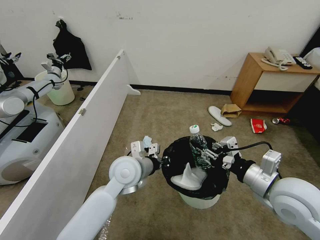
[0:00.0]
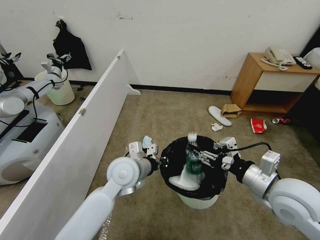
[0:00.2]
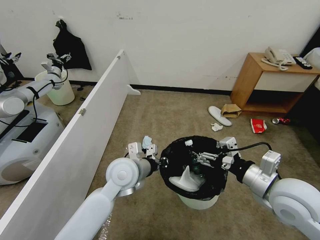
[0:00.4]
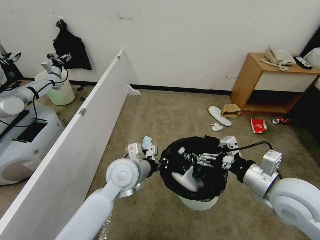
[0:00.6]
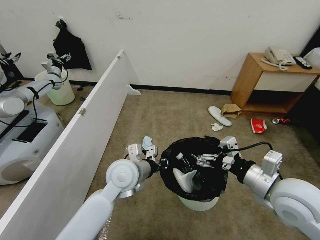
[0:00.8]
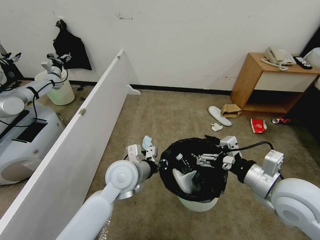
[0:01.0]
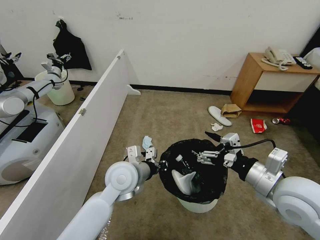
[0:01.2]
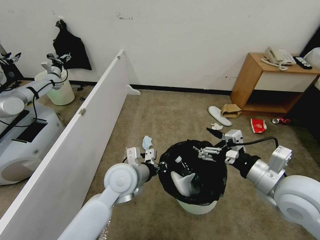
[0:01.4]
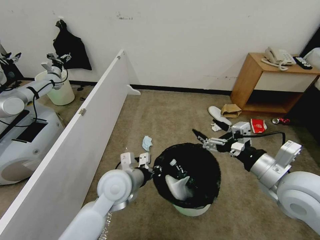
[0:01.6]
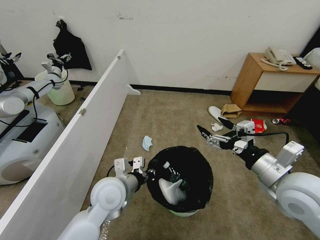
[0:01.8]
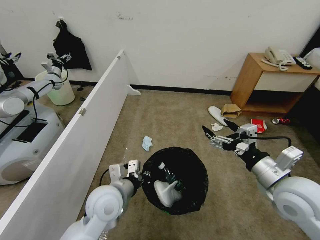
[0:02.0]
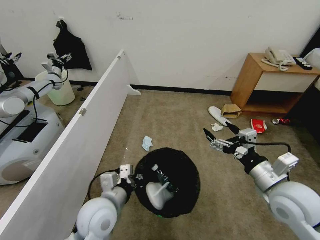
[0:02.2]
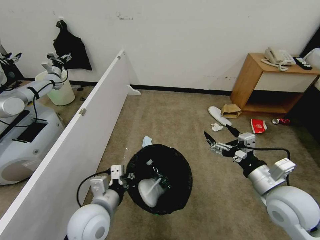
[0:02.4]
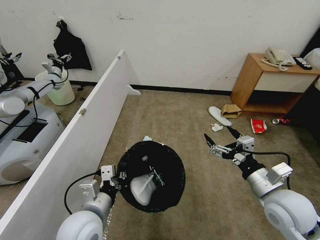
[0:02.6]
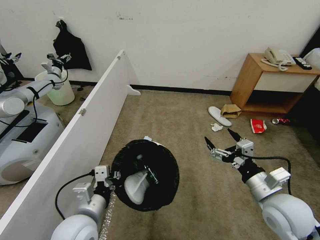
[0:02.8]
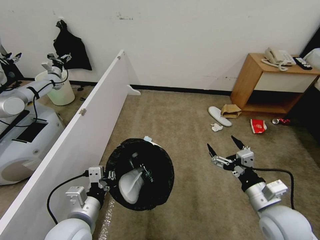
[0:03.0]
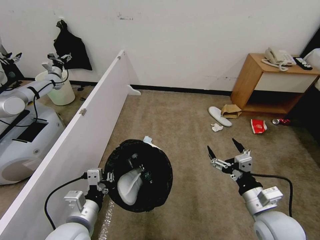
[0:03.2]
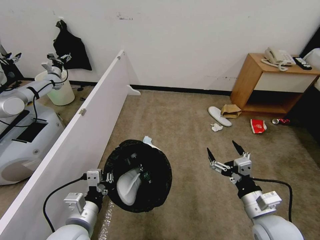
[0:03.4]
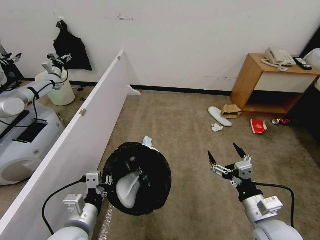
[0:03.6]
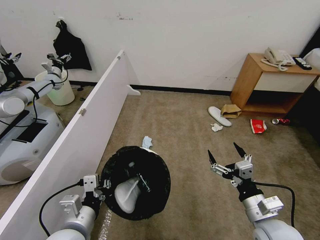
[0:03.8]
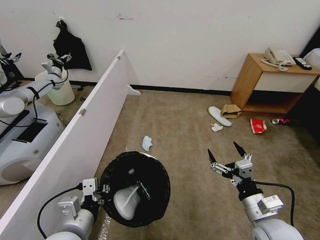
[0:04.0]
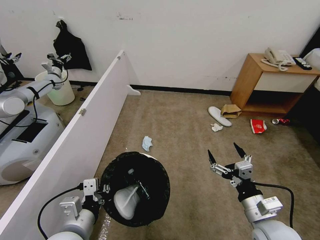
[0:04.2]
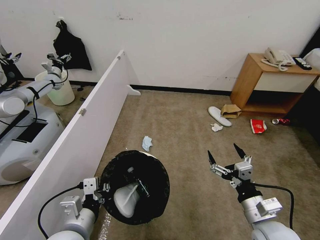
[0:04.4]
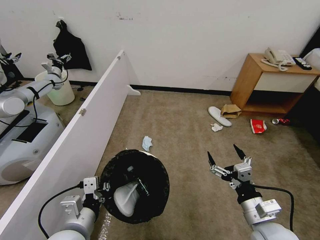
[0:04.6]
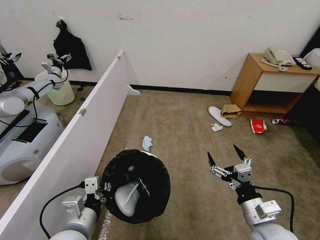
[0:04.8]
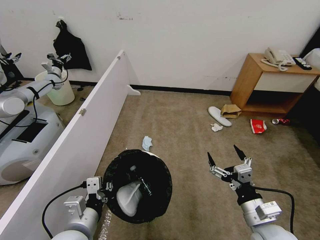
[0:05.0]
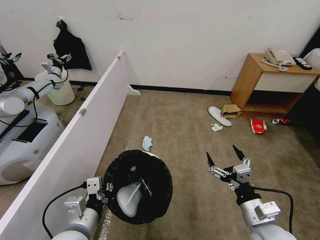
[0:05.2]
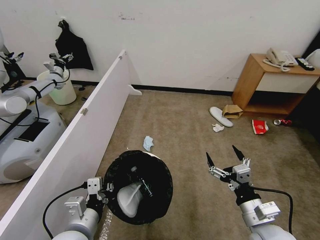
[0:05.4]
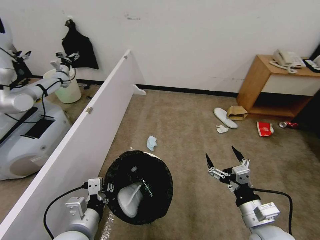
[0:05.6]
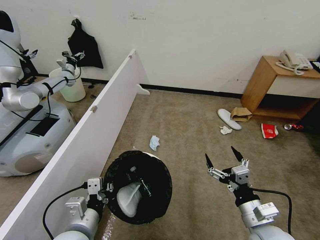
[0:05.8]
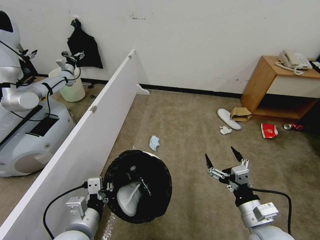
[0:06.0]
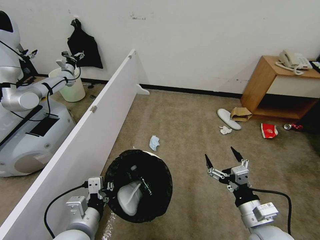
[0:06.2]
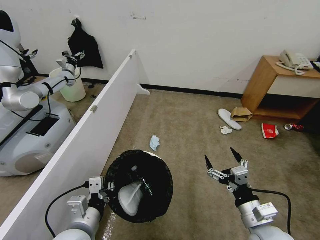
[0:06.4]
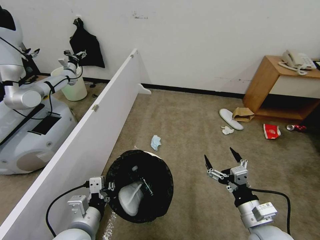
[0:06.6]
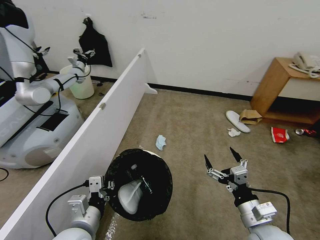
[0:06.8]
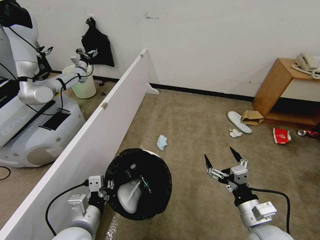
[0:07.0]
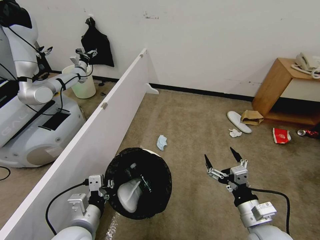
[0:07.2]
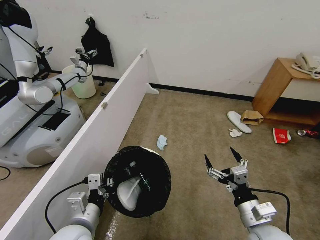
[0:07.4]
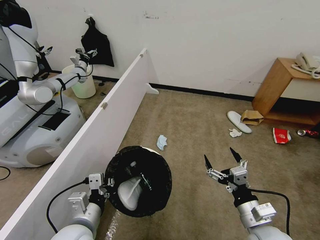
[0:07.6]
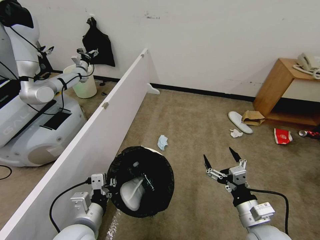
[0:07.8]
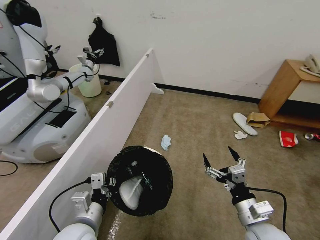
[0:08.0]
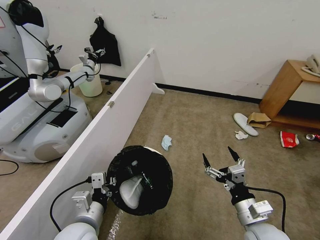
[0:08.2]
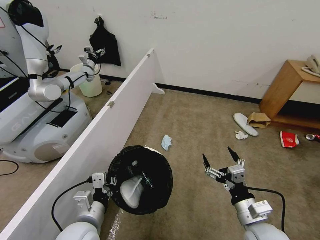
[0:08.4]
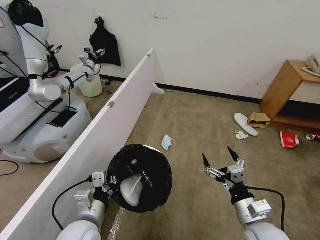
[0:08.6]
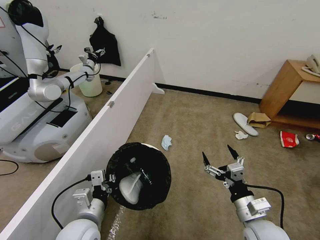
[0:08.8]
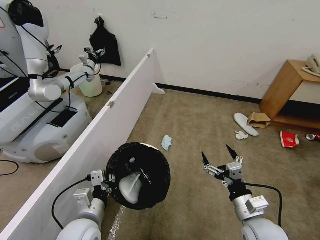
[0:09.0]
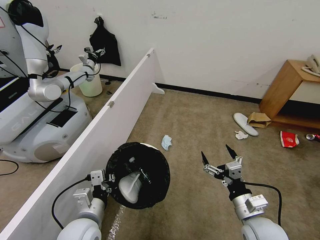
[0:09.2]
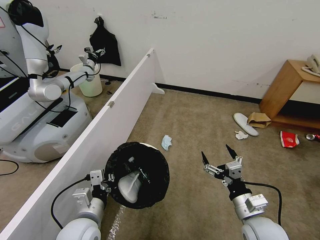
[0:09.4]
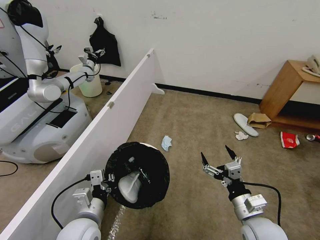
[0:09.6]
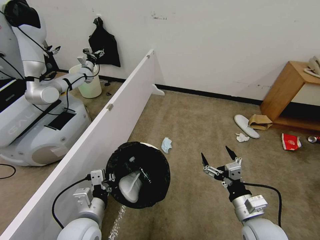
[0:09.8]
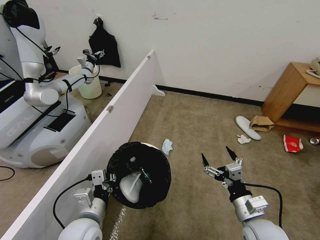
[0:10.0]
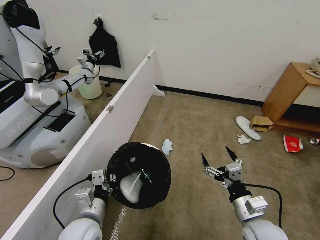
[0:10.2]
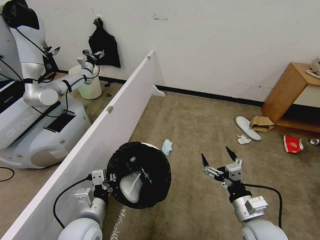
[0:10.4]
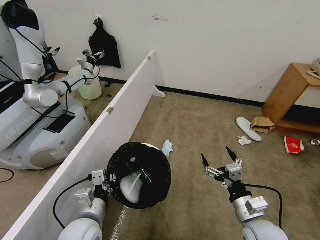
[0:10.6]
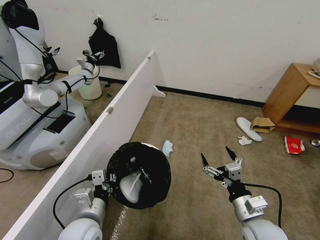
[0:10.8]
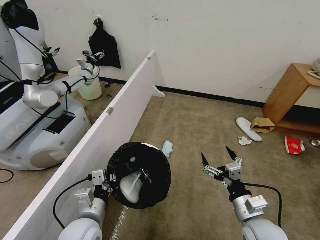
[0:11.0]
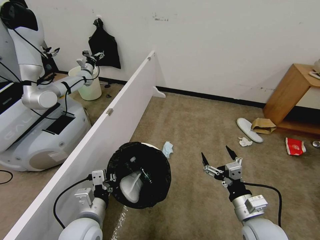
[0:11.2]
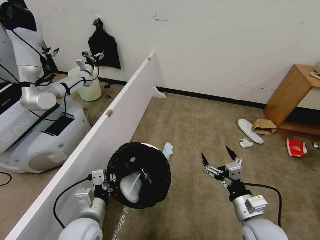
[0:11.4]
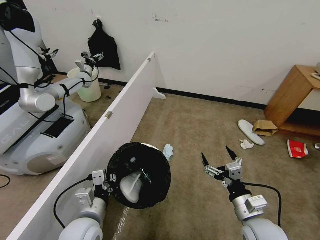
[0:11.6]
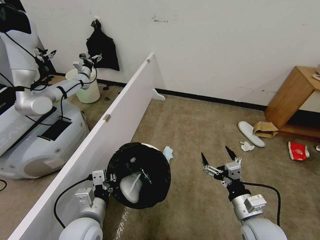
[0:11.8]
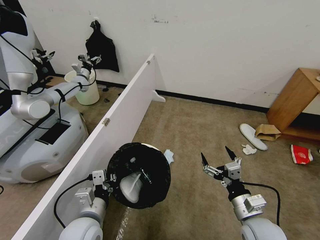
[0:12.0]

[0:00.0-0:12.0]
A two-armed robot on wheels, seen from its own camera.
Task of the whole recording: Pick up the trash bin, then pick up the garbage from the floor and place it into the trash bin.
0:00.0 to 0:01.6: The right gripper opens.
0:01.6 to 0:03.0: The left gripper moves backward and to the left, some 15 cm. The right gripper travels downward by approximately 10 cm.
0:03.0 to 0:04.4: The grippers stay close to where they were, moving slightly.
0:09.0 to 0:10.4: Both grippers stay about where they are.

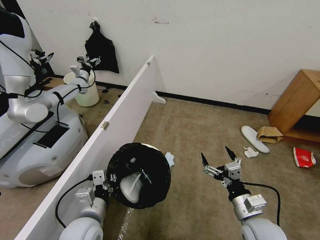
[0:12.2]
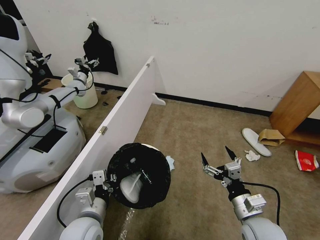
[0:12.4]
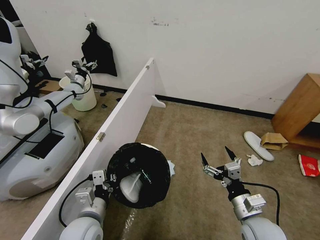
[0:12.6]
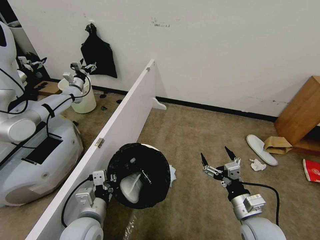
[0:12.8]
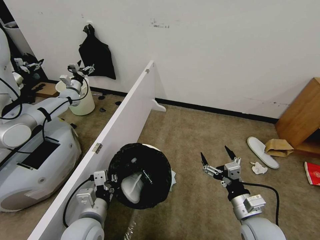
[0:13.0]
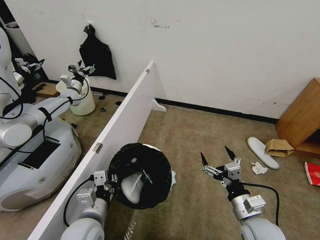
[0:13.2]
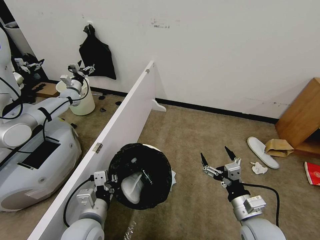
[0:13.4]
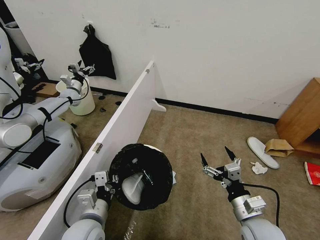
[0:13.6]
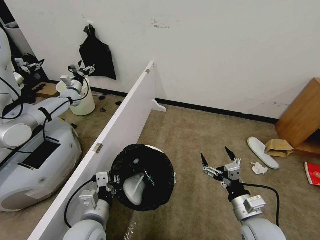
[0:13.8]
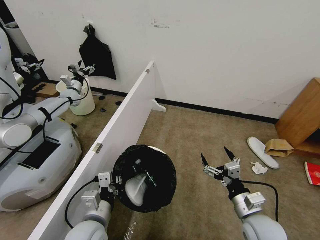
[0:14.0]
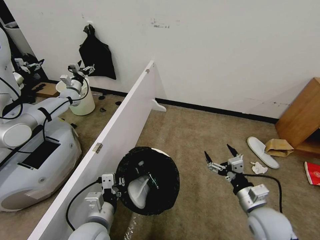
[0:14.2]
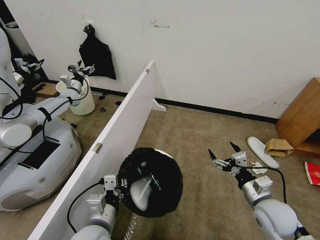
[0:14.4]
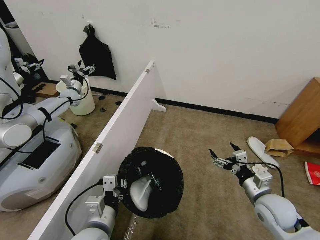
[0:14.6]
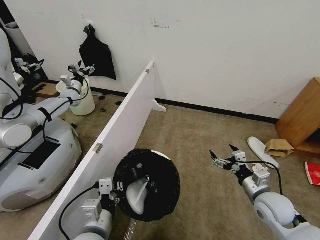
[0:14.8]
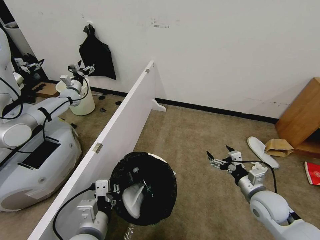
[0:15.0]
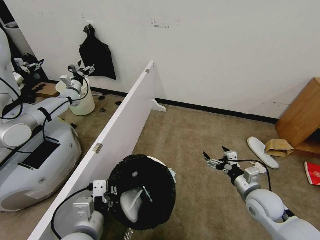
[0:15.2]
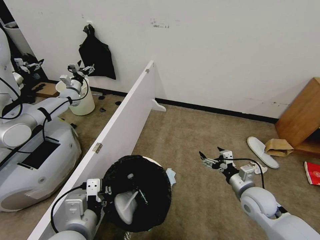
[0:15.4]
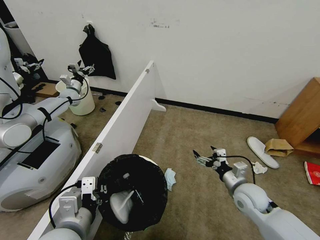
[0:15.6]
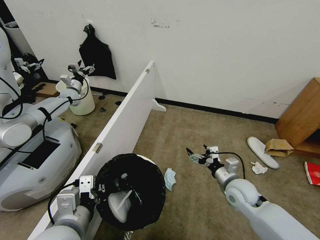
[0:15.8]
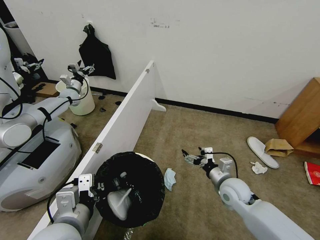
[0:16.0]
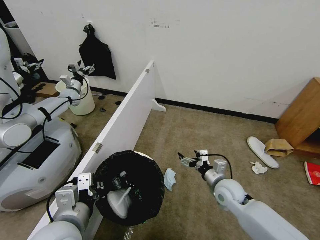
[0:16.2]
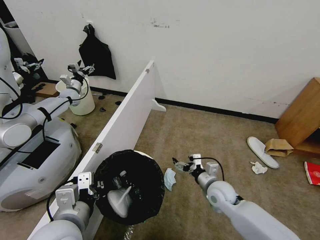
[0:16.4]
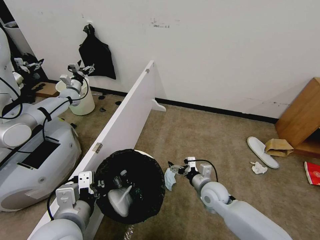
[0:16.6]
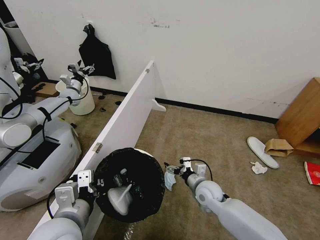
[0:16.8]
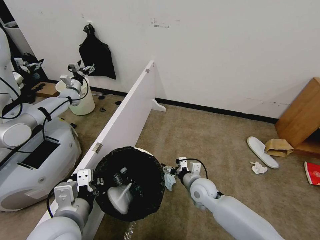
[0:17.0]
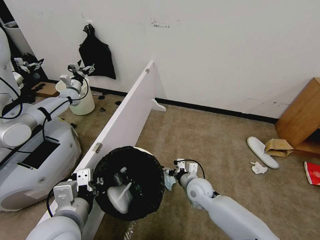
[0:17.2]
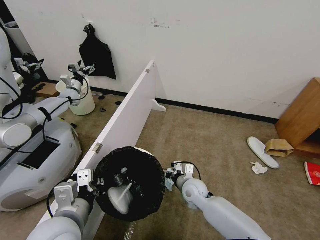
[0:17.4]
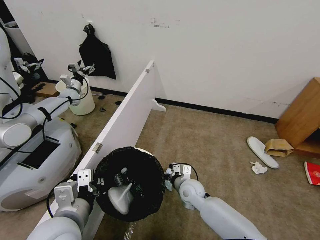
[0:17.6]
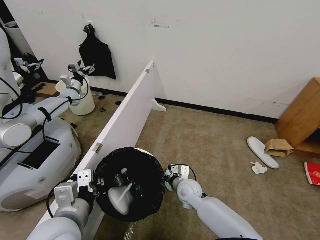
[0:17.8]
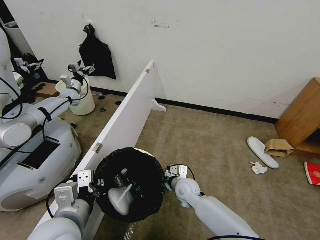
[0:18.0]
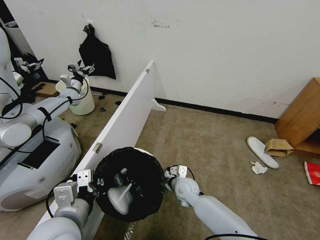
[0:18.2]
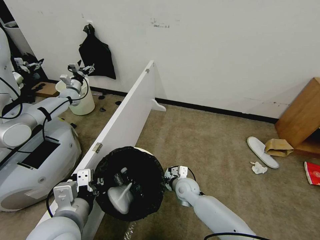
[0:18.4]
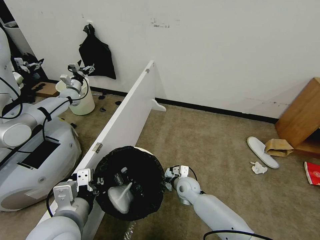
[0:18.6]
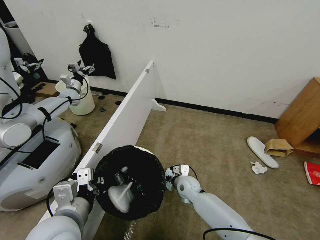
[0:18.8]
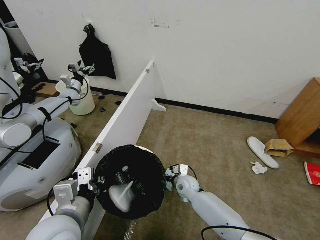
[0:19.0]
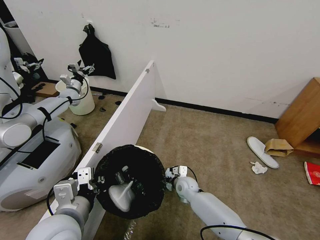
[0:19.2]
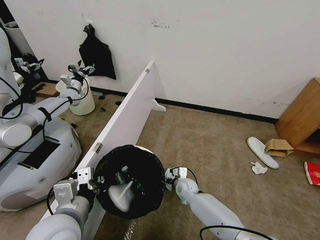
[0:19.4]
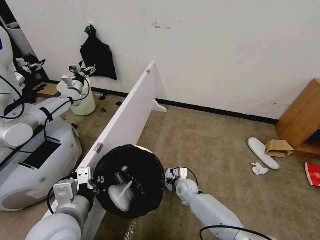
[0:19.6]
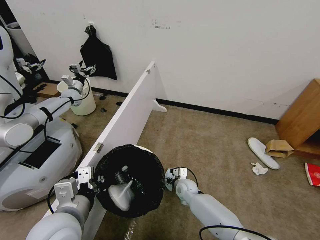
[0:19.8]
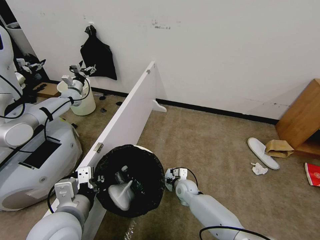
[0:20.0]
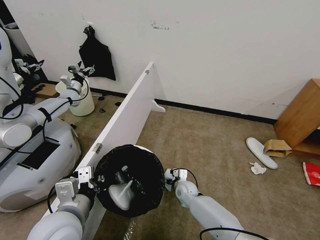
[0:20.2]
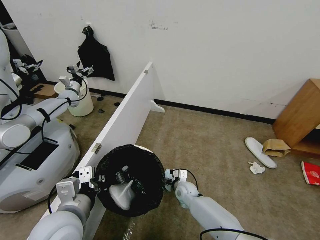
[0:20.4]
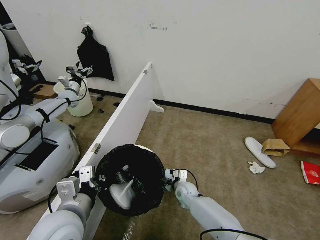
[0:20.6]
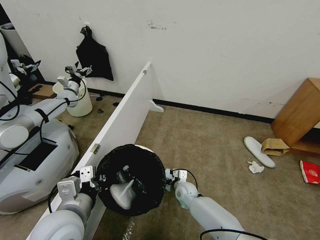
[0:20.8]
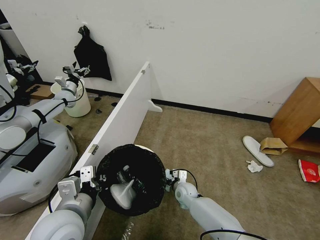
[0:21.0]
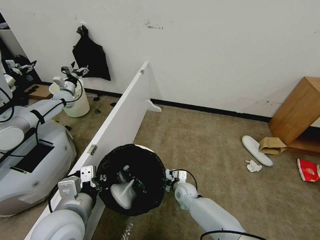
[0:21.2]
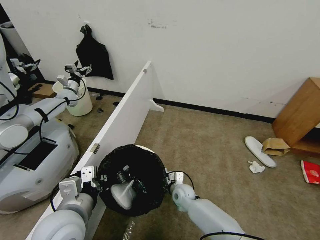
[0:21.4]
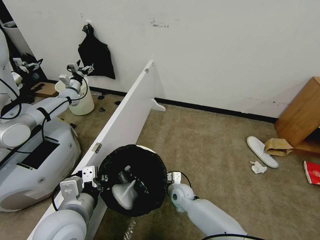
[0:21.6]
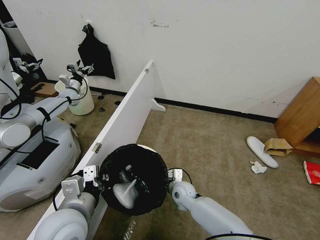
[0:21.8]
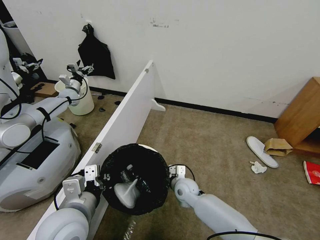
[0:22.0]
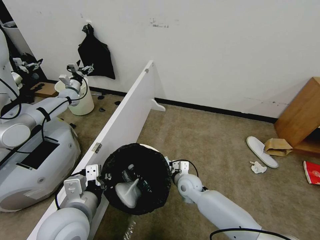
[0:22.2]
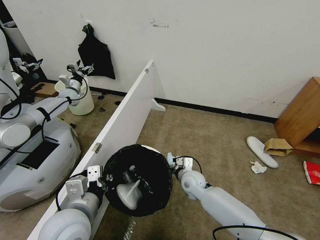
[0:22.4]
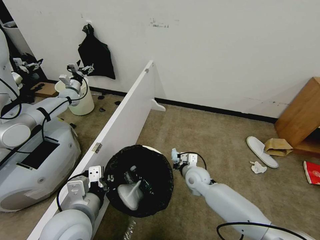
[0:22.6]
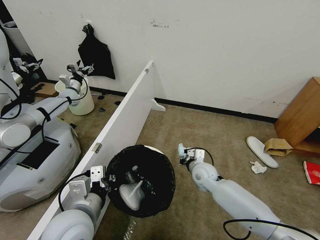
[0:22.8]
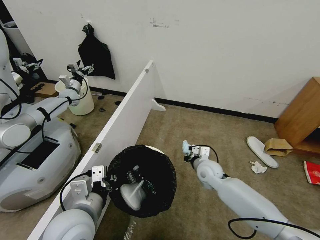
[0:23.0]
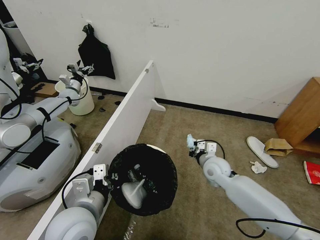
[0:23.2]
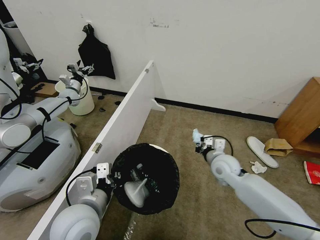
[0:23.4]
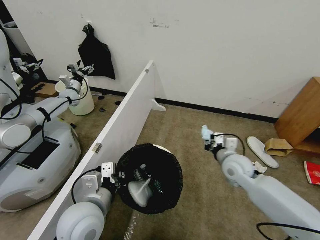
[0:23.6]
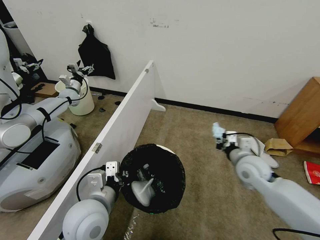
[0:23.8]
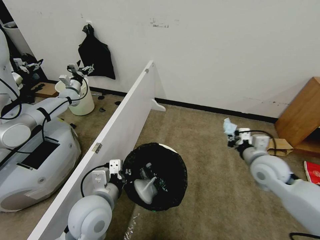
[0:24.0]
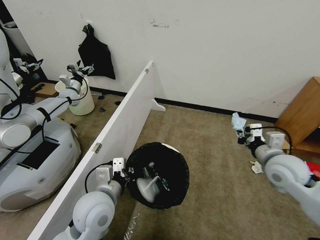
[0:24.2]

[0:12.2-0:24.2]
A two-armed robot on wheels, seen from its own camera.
Task of the whole recording: Pick up the trash bin, then pick up the garbage from the floor and place it into the trash bin.
0:13.8 to 0:15.2: The right gripper moves forward and to the right, roughly 10 cm. The left gripper ends up about 5 cm from where it was.
0:15.2 to 0:16.6: The left gripper shifts by approximately 5 cm. Meanwhile the right gripper is displaced to the left, downward and forward by about 15 cm.
0:16.6 to 0:18.2: The right gripper is displaced to the left by approximately 10 cm.
0:18.2 to 0:19.8: The right gripper shifts some 5 cm downward.
0:19.8 to 0:21.2: The right gripper closes up.
0:21.2 to 0:22.6: The right gripper travels upward by roughly 10 cm, and closes its fingers.
0:22.6 to 0:24.2: The right gripper is displaced to the right and upward by about 25 cm. Meanwhile the left gripper heads forward, covering some 5 cm.
